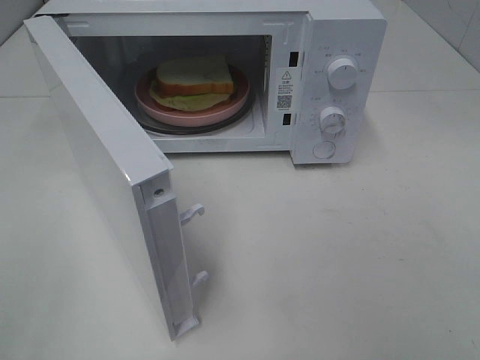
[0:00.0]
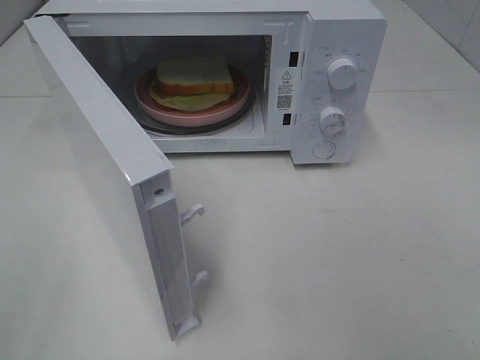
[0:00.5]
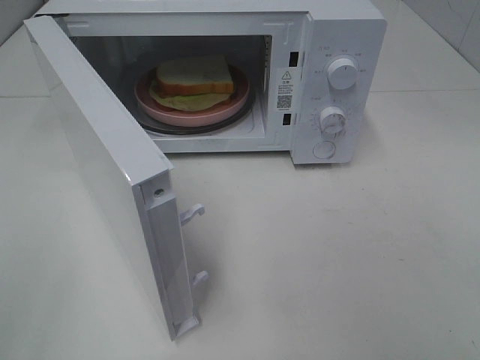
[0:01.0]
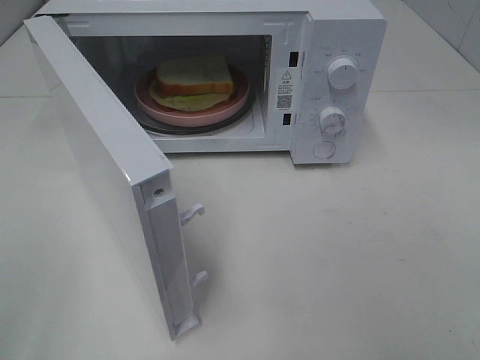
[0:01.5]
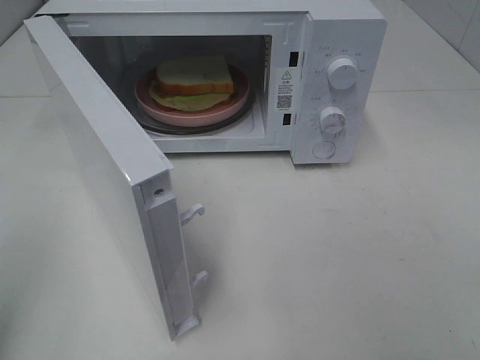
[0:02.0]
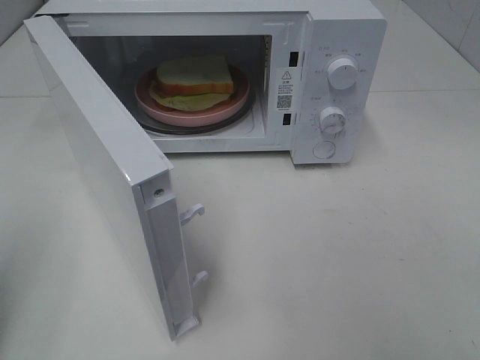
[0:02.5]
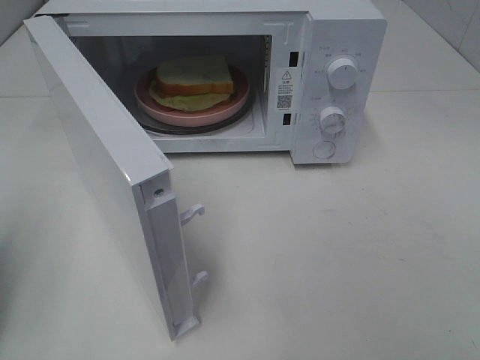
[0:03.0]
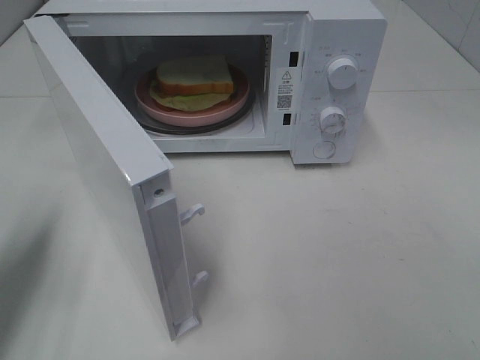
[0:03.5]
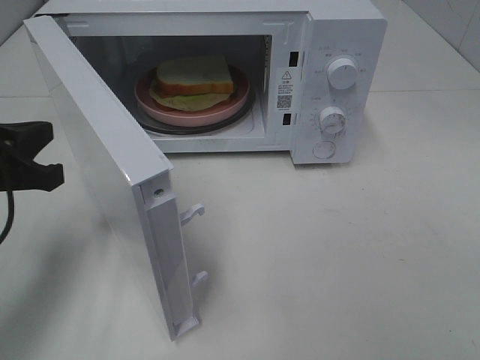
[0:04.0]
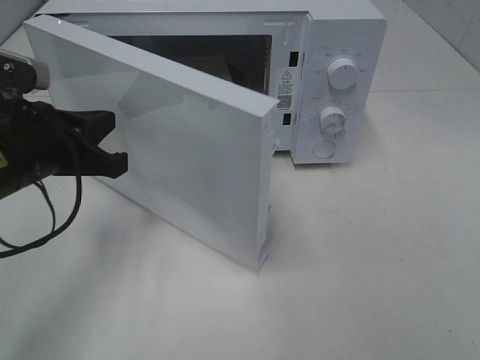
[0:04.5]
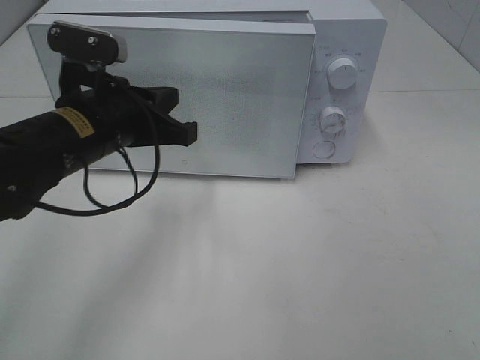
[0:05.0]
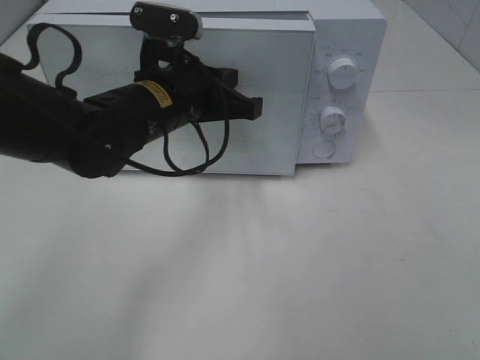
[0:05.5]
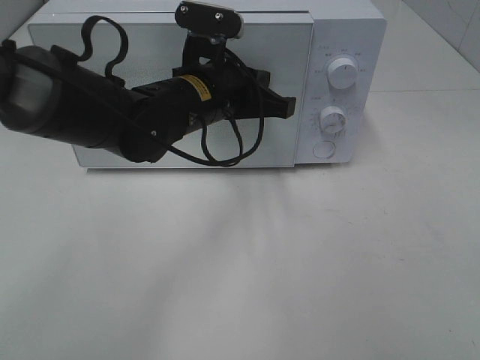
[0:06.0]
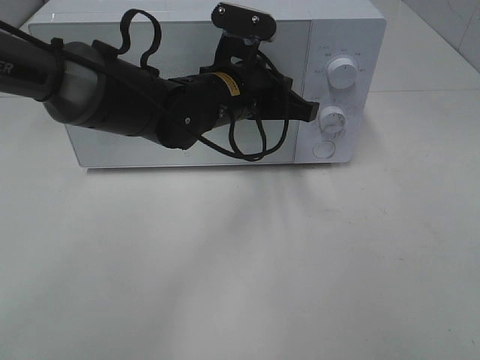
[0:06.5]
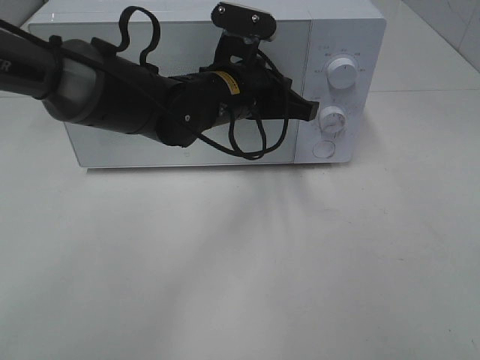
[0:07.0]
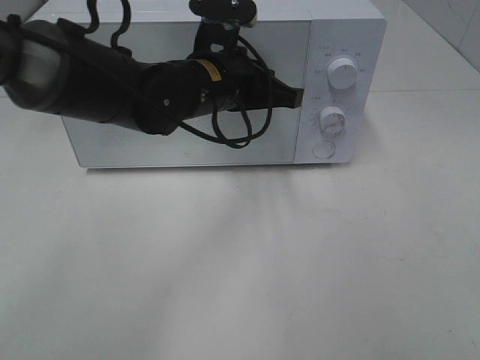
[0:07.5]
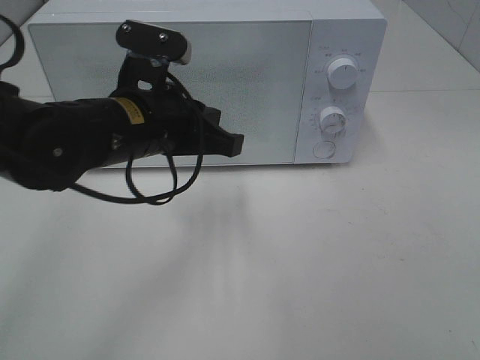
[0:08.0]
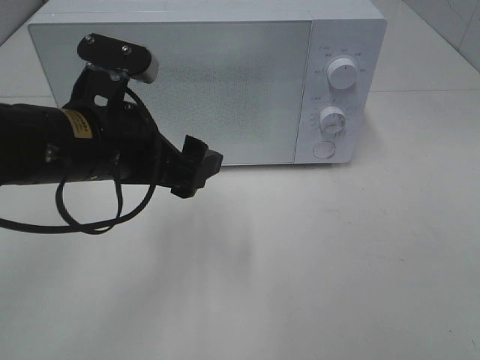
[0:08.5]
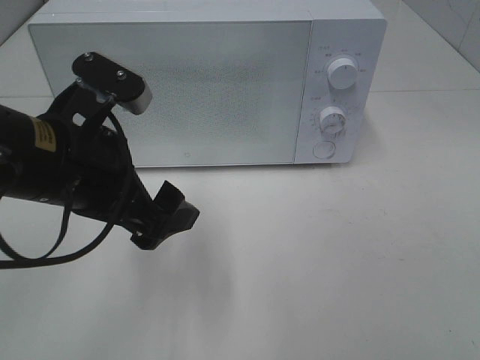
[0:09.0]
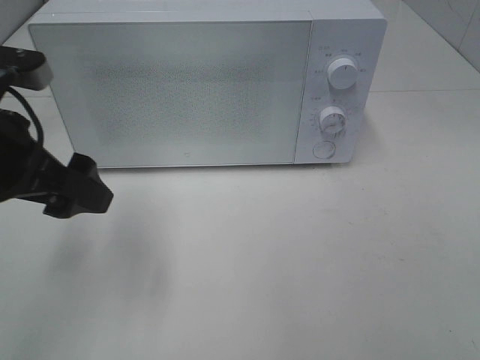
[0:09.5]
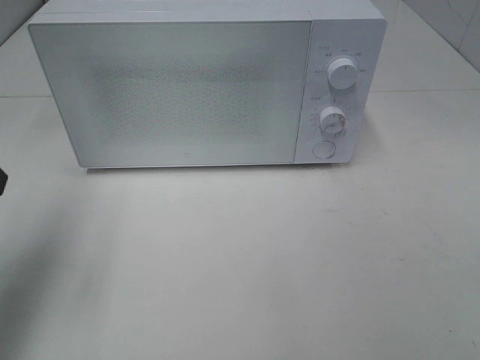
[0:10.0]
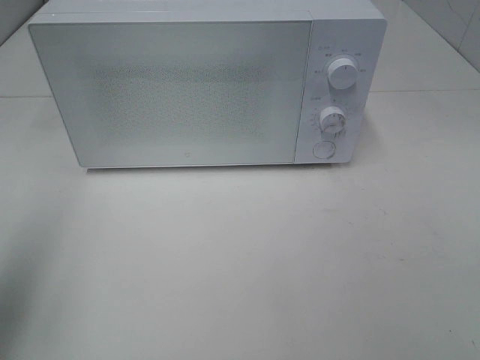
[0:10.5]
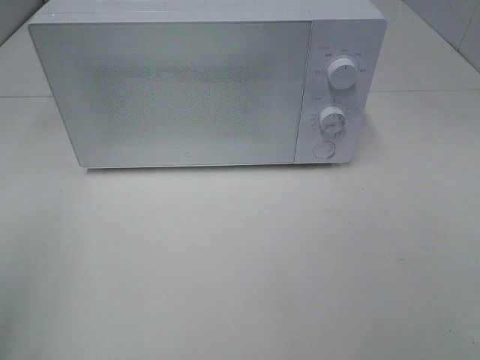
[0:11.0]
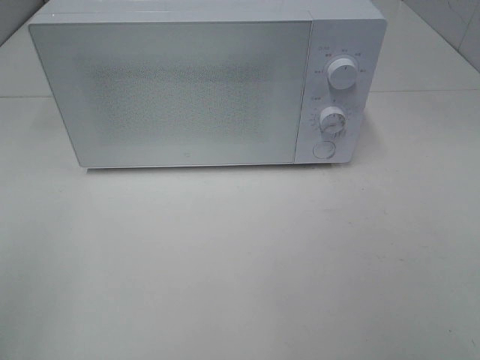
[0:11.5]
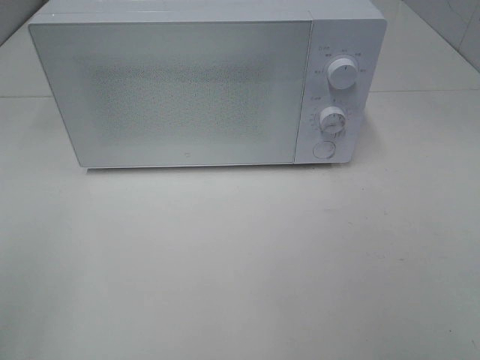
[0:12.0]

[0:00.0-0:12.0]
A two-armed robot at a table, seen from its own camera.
Task of the whole recording: Heat Sandwich.
Step, 0:00.0 to 0:07.5: Left hand: close the microwave door.
0:02.0 to 0:04.0: The left gripper shifts about 20 cm forward, downward and to the right.
0:04.0 to 0:06.0: The left gripper is displaced to the right and forward by approximately 25 cm.
0:06.0 to 0:08.0: The left gripper heads backward and to the left, covering roughly 10 cm.
0:08.0 to 0:10.0: The left gripper goes approximately 20 cm to the left, and opens.
0:10.0 to 0:12.0: The left gripper heads backward, covering about 20 cm.

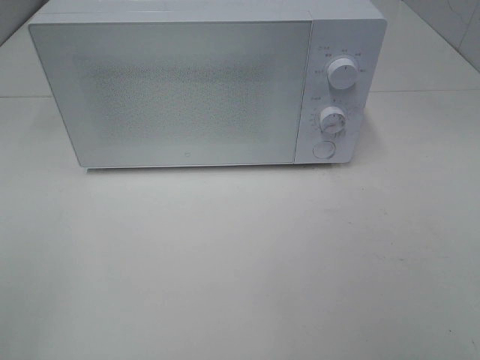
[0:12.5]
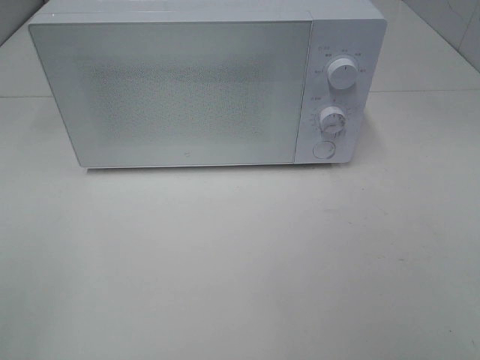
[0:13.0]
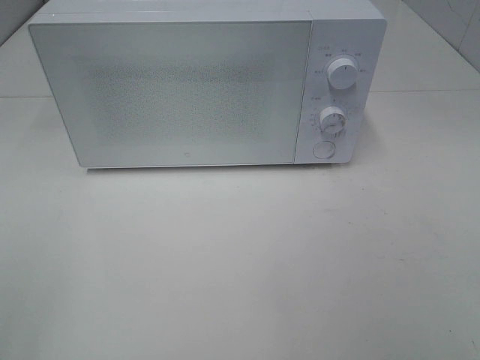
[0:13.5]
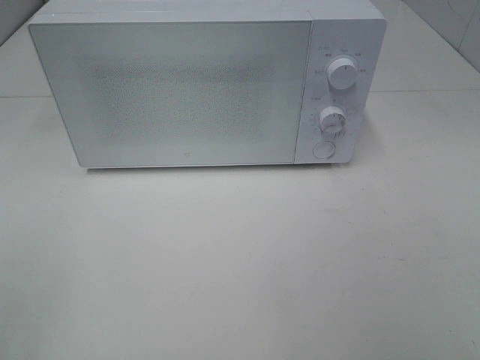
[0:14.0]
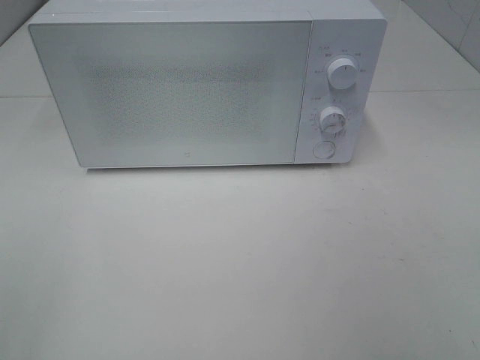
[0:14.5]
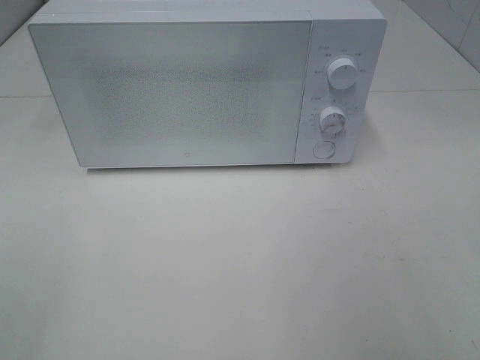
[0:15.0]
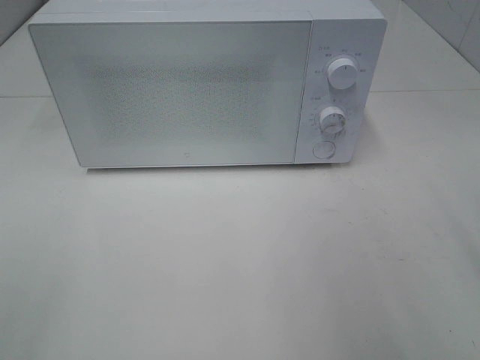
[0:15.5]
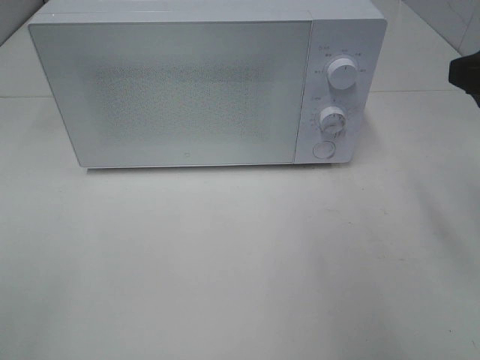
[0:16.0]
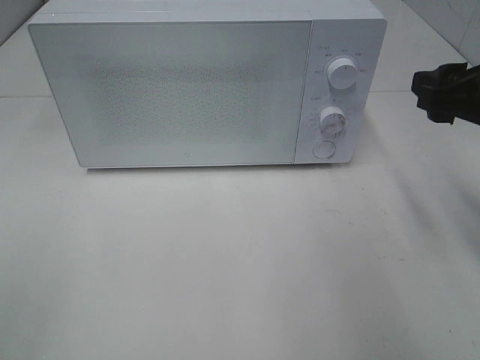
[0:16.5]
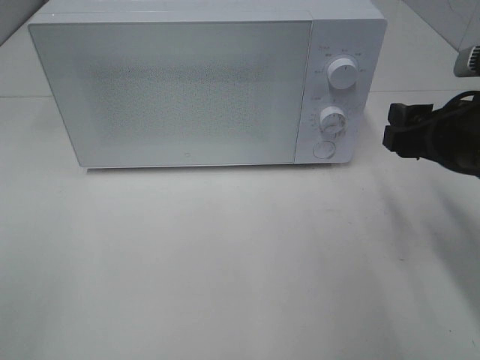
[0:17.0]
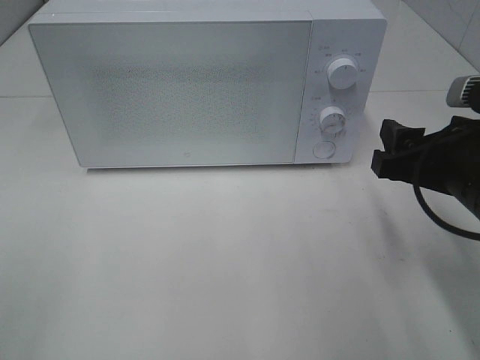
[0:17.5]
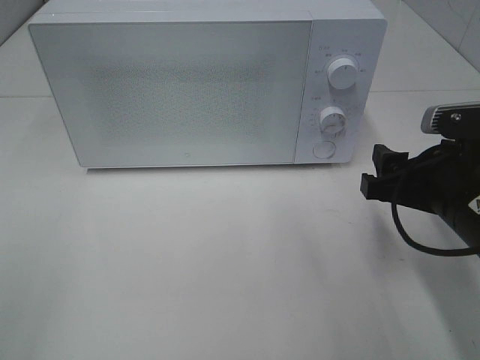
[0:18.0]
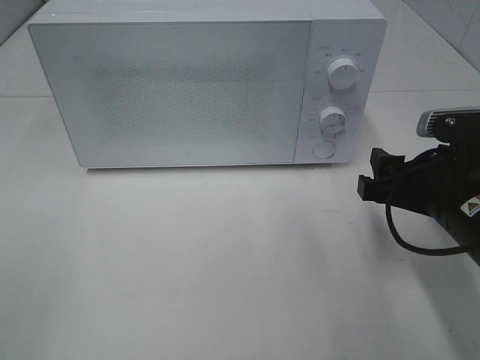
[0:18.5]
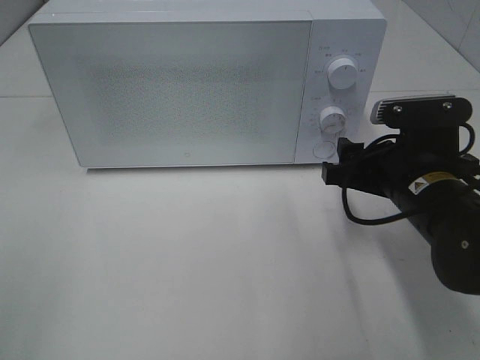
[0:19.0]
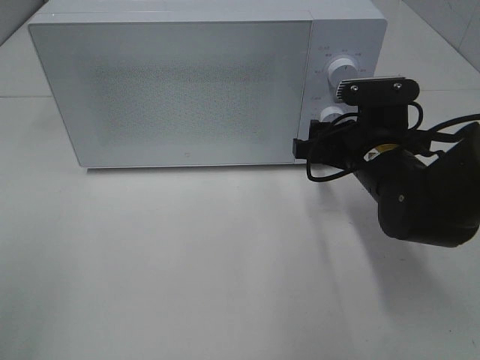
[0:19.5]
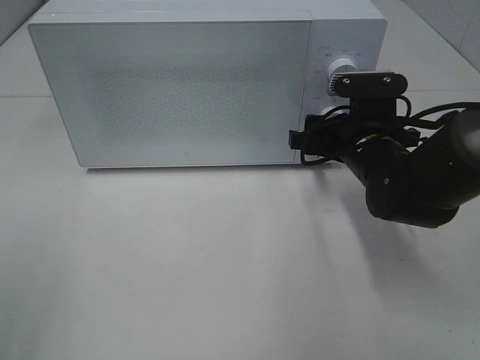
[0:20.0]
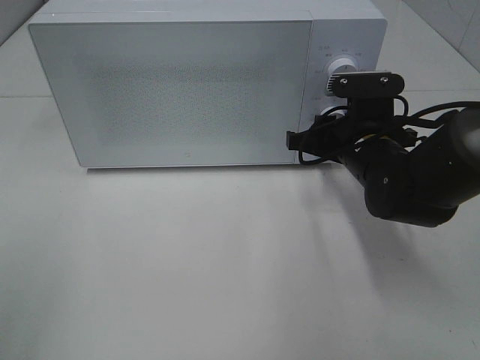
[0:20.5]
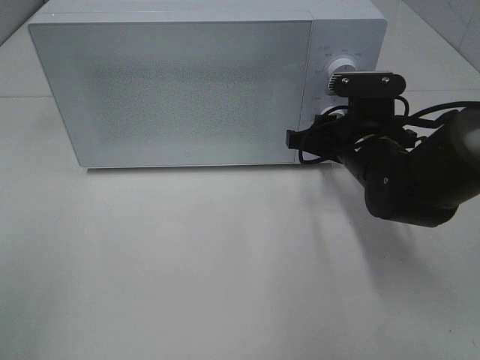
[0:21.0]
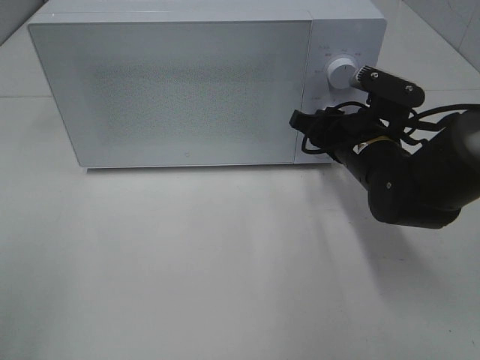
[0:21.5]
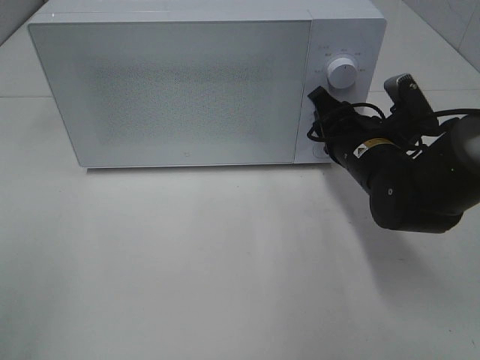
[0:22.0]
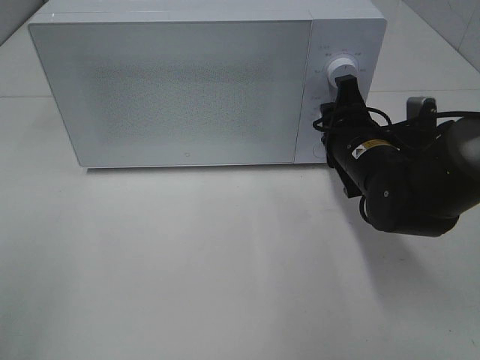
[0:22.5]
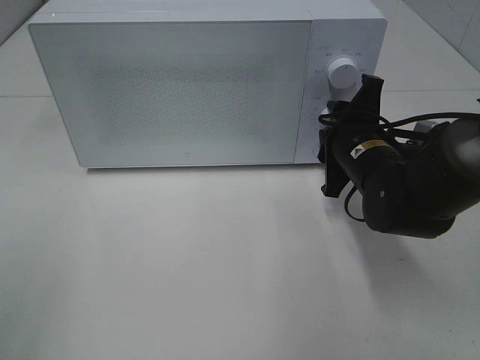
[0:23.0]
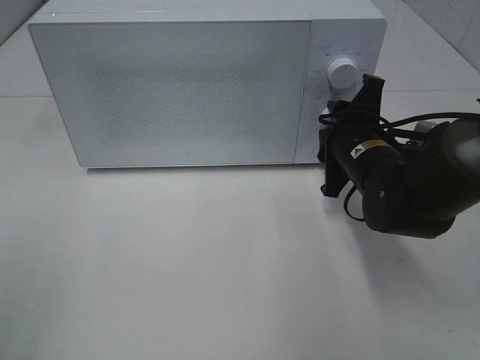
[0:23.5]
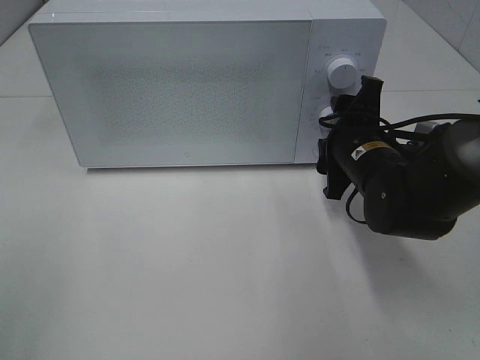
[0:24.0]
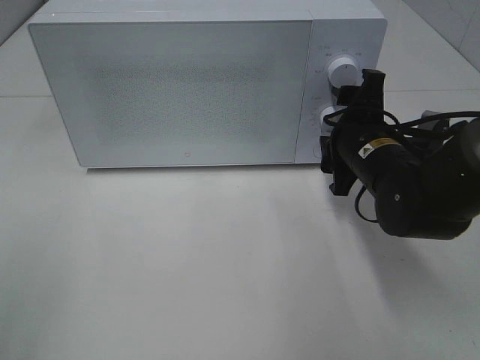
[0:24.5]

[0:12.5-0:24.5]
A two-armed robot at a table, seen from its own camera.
Task of the whole recording: Heat Sandwich.
Step, 0:12.5 to 0:24.0: Right hand: twist timer button.
0:14.5 to 0:16.5: The right gripper is displaced forward by approximately 20 cm.
0:16.5 to 0:18.5: The right gripper travels downward by roughly 10 cm.
0:18.5 to 0:20.5: The right gripper goes roughly 15 cm forward and to the left, and closes its fingers.

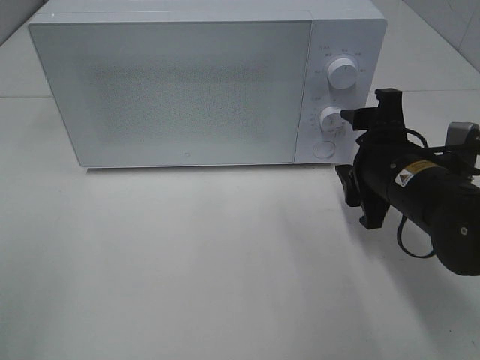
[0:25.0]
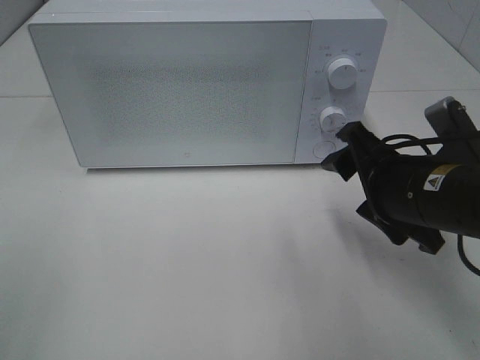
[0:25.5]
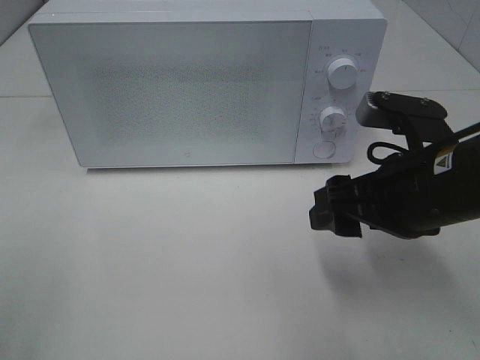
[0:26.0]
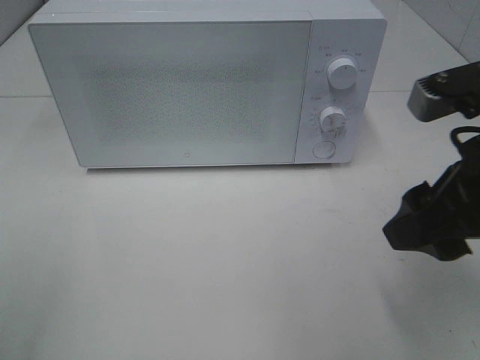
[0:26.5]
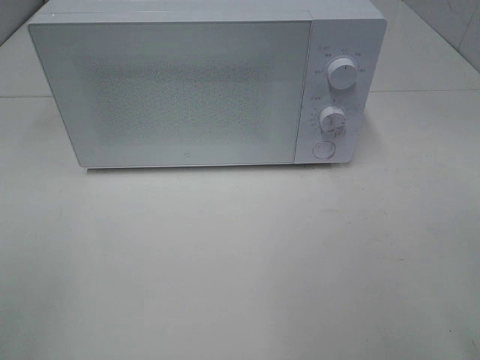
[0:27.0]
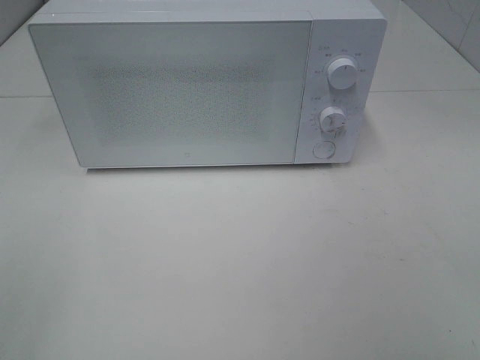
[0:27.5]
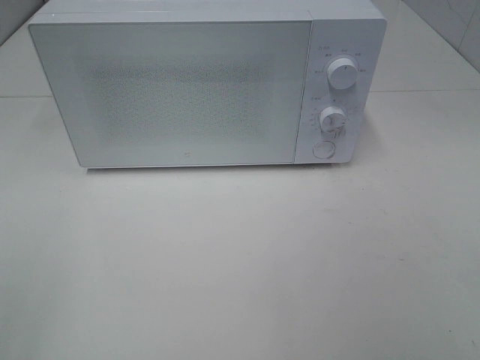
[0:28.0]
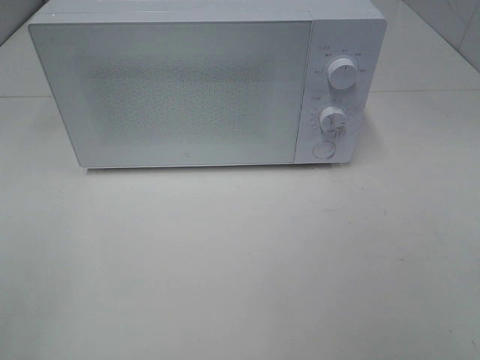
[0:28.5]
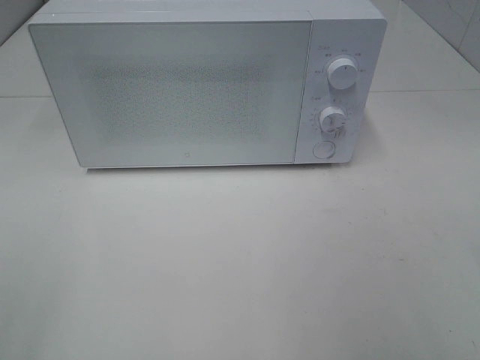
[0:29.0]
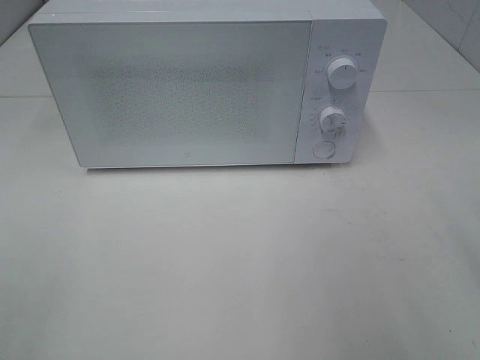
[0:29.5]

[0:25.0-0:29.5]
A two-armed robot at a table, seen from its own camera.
Task of the whole recording: Heat Sandwich.
0:25.0 to 0:27.0: The right gripper is displaced backward and upward by some 25 cm.
